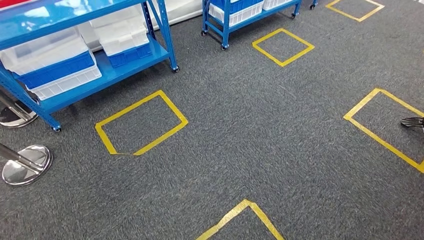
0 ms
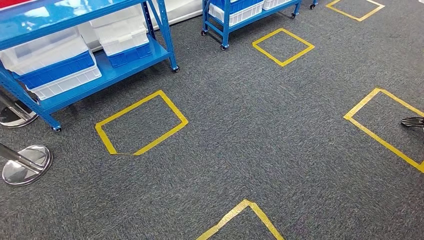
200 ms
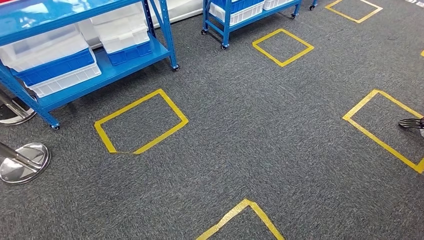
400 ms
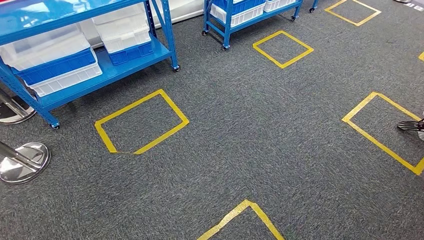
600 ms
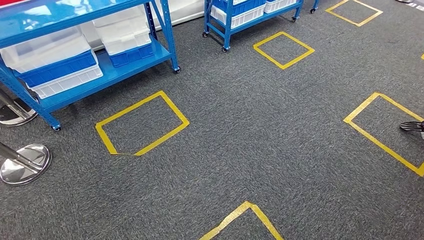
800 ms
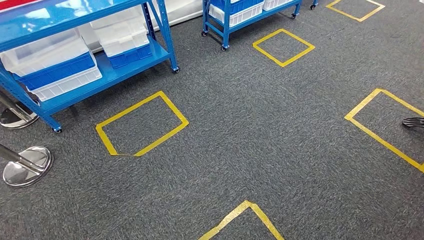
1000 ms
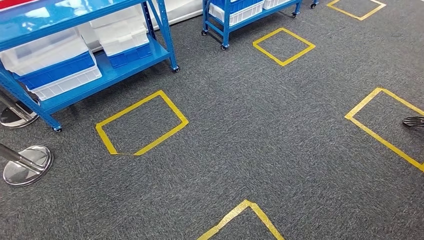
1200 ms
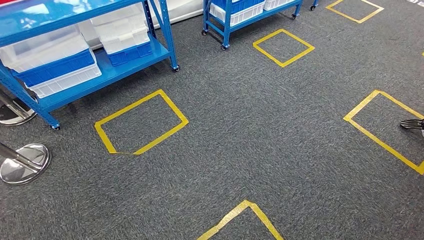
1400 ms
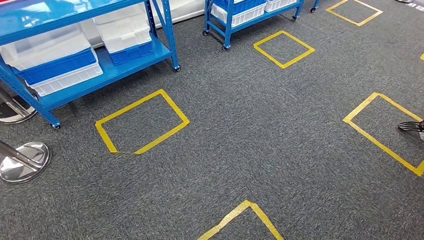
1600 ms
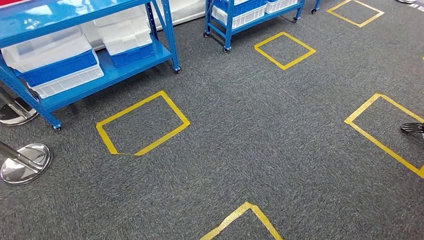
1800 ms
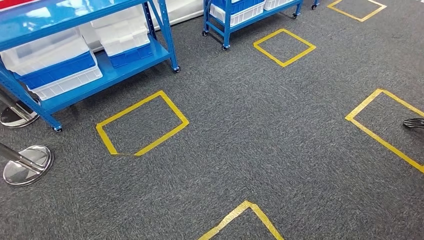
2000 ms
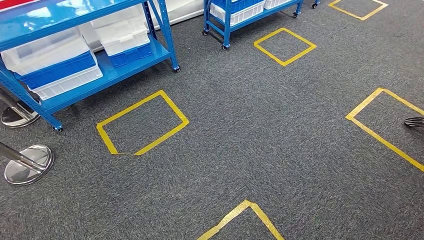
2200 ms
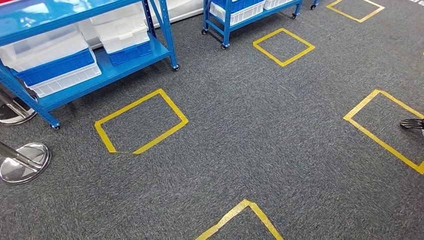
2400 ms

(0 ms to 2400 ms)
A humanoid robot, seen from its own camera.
Step, 0 ms - 2400 ms: Return to the initial position at the shelf.
0 ms - 2400 ms: Both hands stay about where they are.
